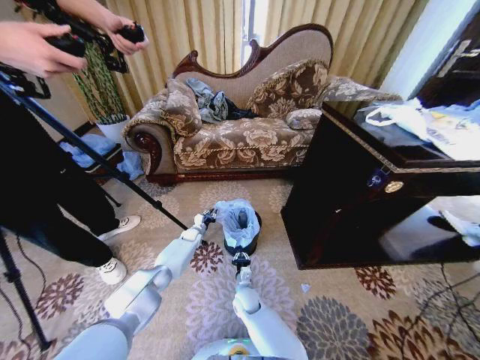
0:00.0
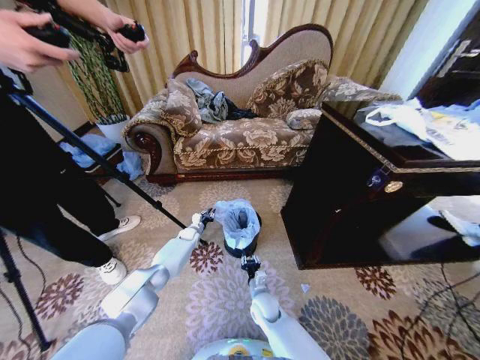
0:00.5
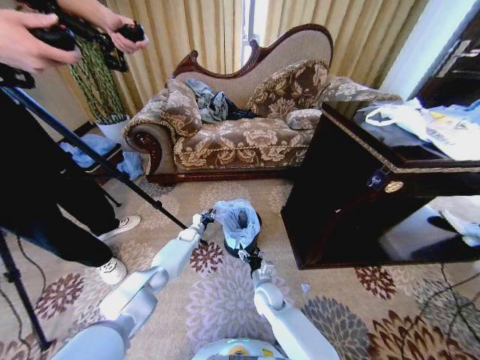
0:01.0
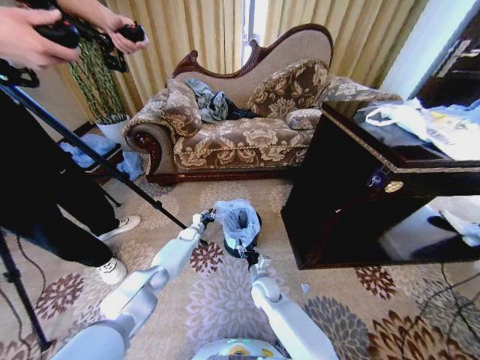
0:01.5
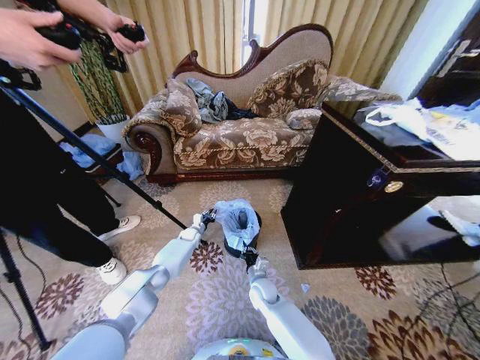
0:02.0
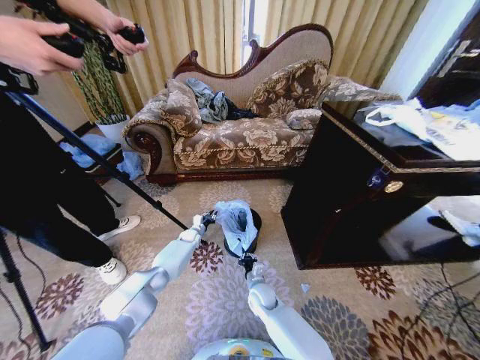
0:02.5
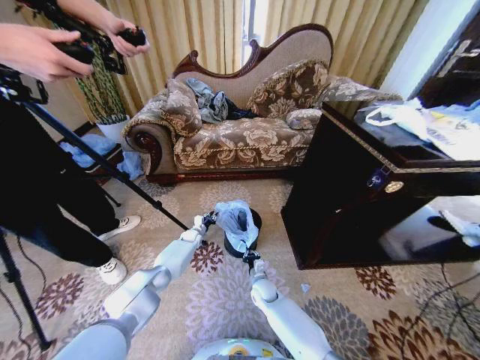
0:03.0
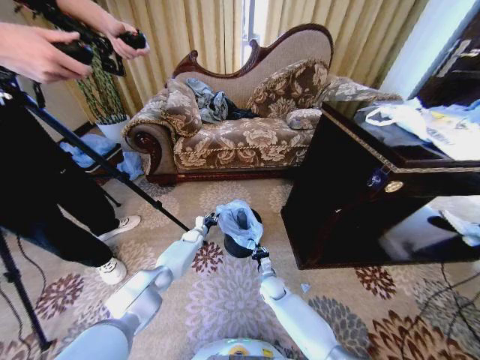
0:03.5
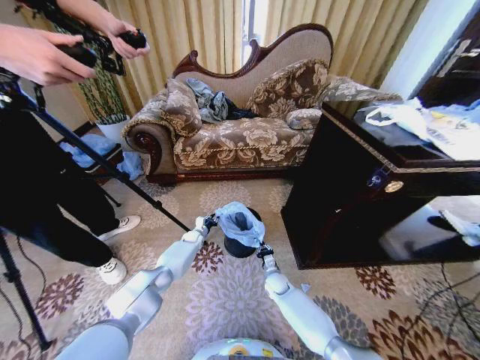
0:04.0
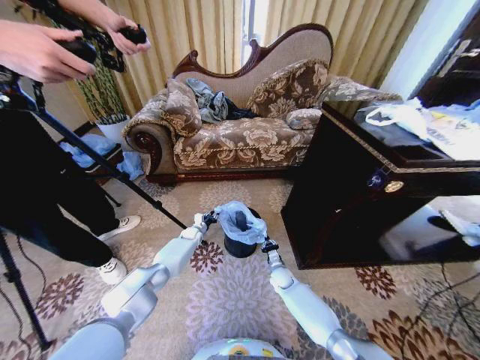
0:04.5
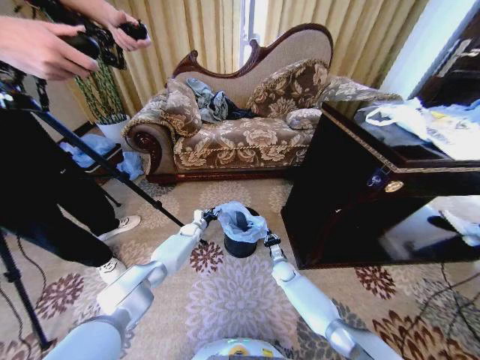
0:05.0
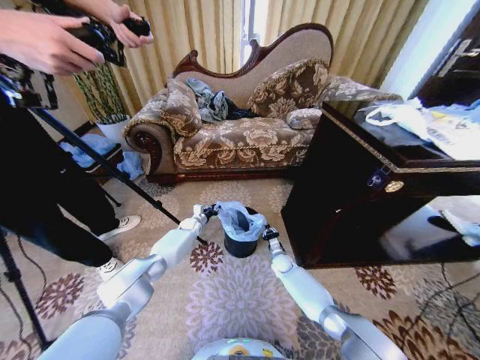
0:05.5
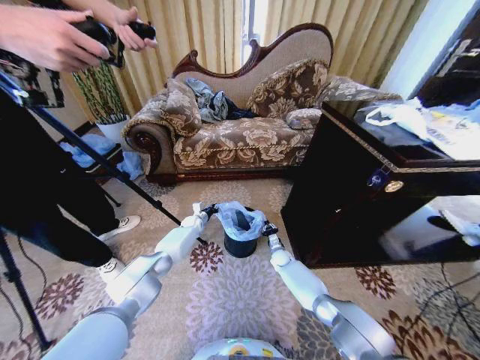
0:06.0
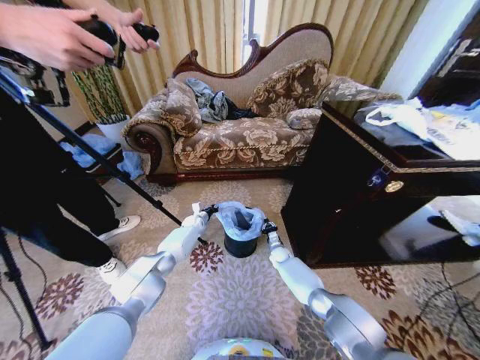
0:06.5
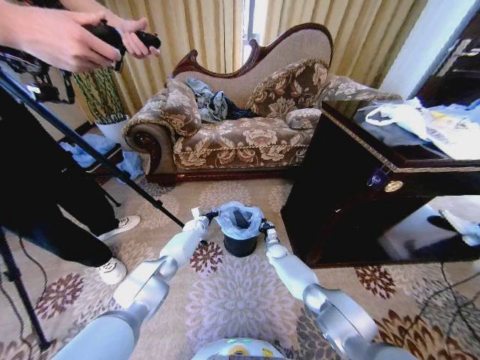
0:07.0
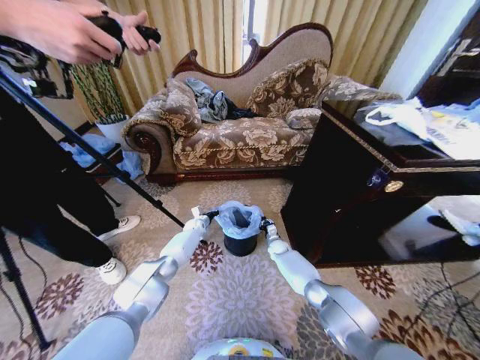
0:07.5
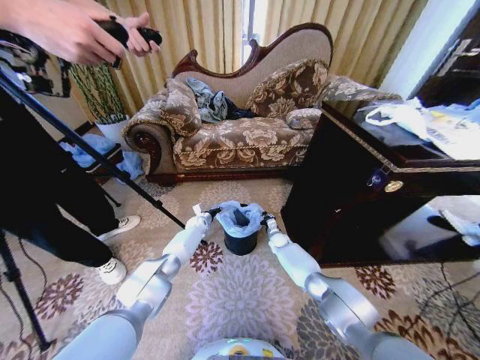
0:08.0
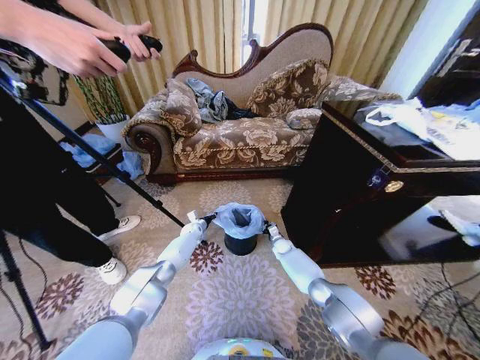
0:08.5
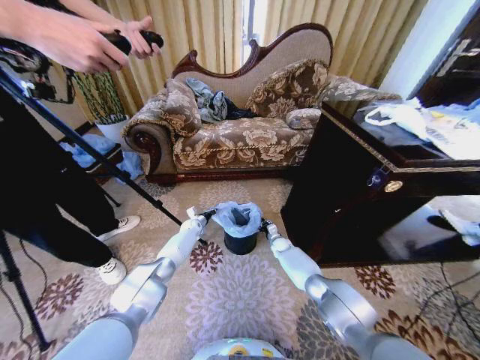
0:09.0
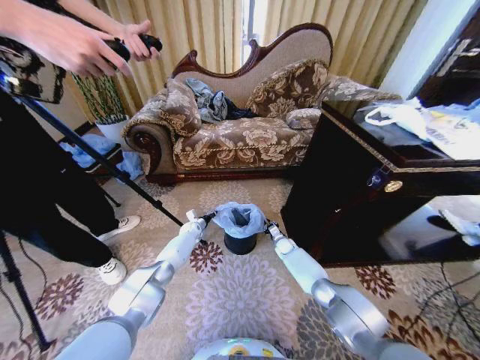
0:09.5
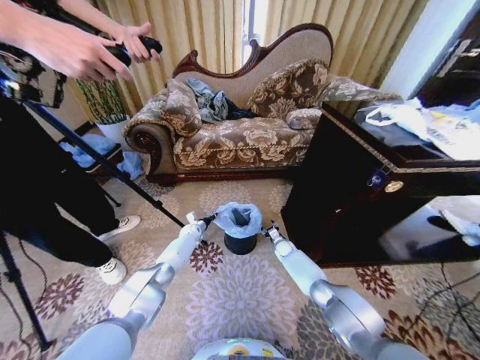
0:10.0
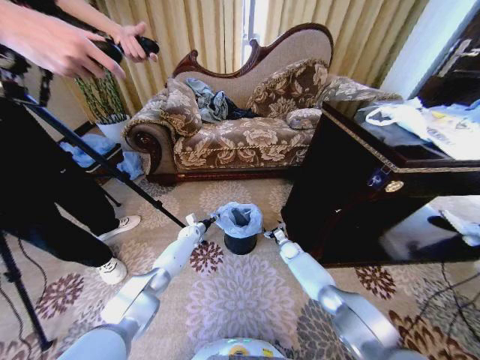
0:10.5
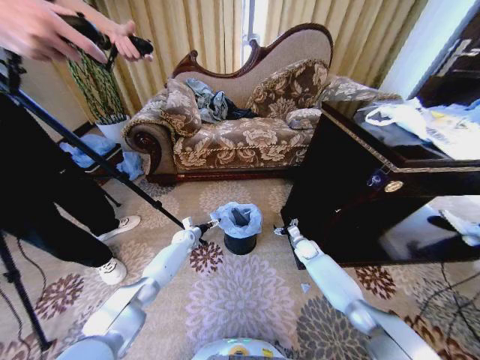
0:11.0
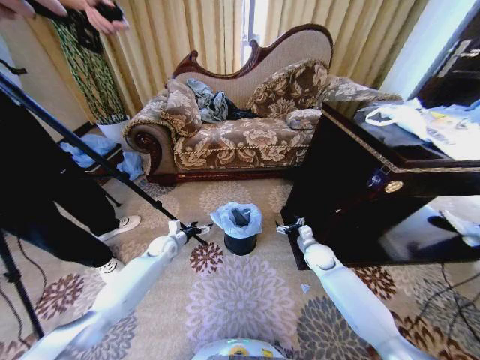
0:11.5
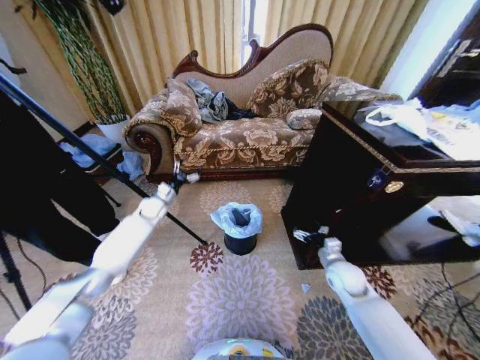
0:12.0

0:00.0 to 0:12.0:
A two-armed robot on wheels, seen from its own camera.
Task of the whole recording: Place a garbage bag over the trash bin.
0:00.0 to 0:02.0: The right gripper goes some 5 cm to the right, and opens, then closes once more.
0:02.0 to 0:04.0: The right gripper shifts roughly 10 cm to the right and downward.
0:04.0 to 0:06.0: The right gripper moves forward, approximately 10 cm. Meanwhile the left gripper goes approximately 5 cm upward.
0:06.0 to 0:08.0: The right gripper shifts about 5 cm forward.
0:08.0 to 0:10.0: The right gripper opens up.
0:10.0 to 0:12.0: The right gripper shifts about 25 cm backward, upward and to the right; the left gripper goes roughly 20 cm upward and to the left, and opens.

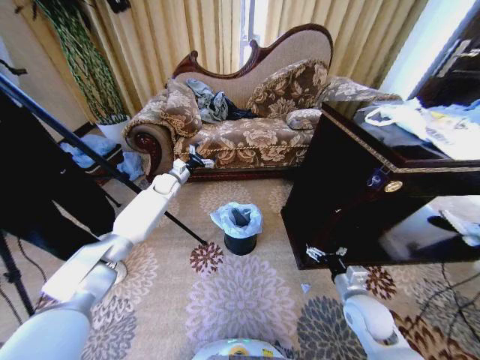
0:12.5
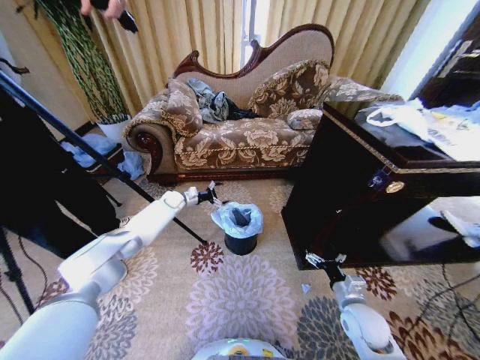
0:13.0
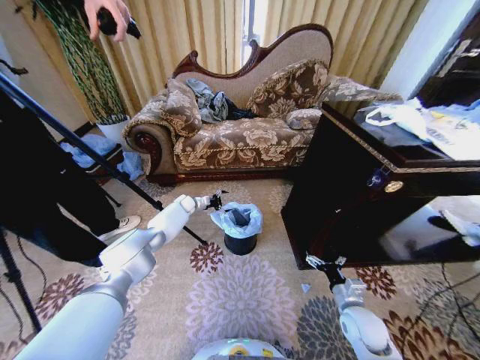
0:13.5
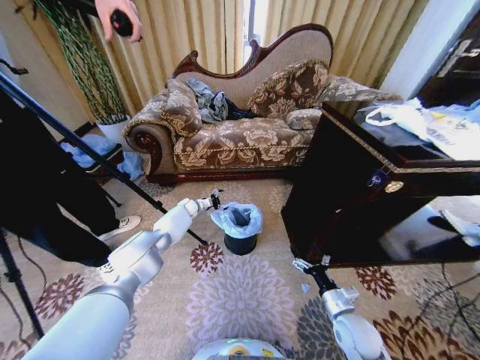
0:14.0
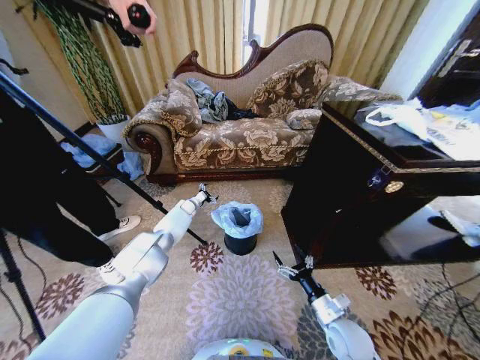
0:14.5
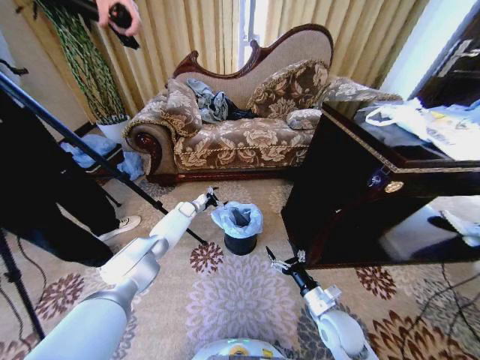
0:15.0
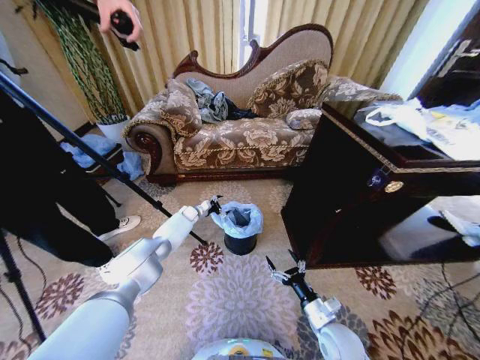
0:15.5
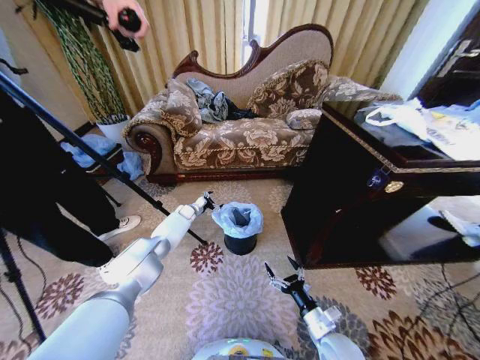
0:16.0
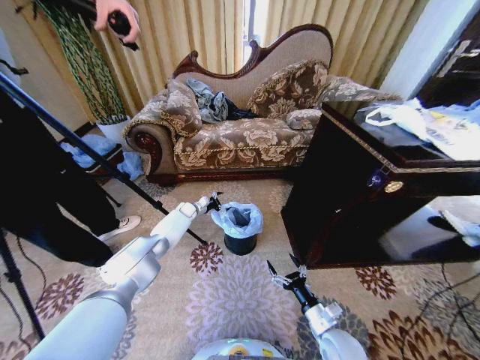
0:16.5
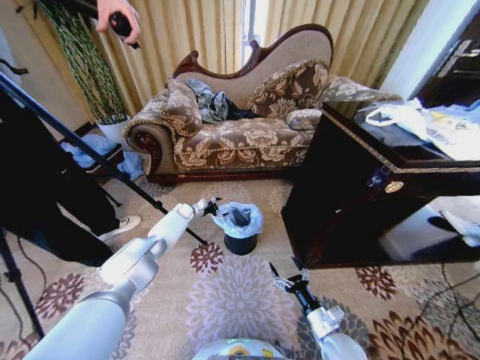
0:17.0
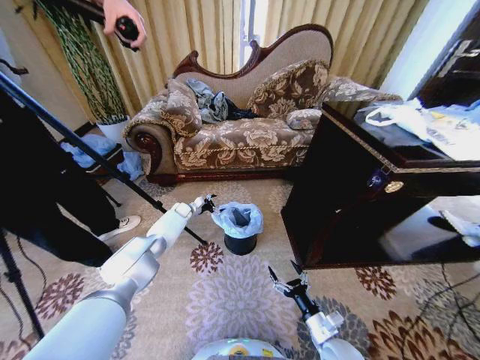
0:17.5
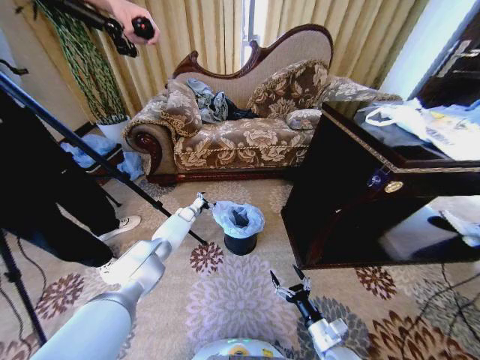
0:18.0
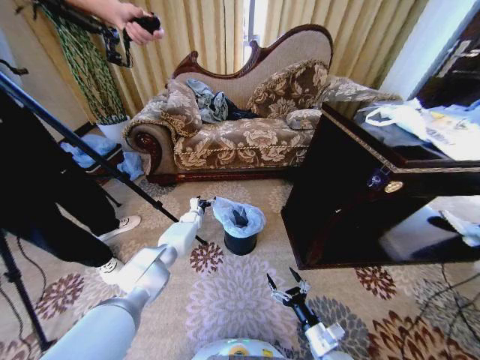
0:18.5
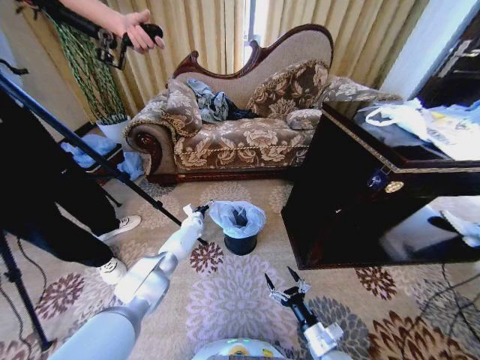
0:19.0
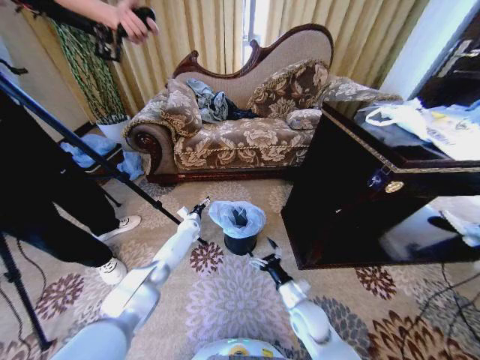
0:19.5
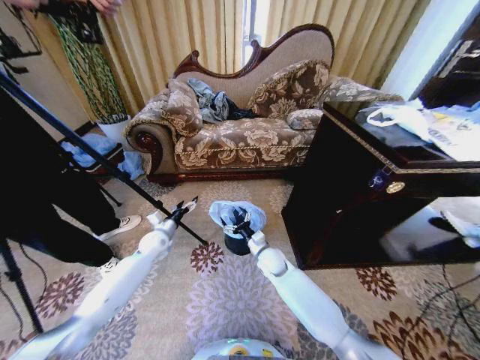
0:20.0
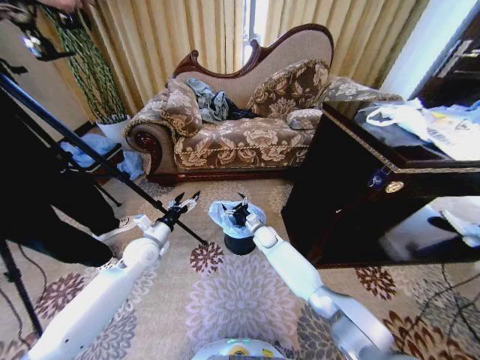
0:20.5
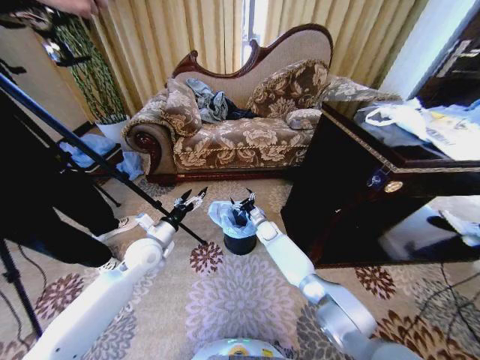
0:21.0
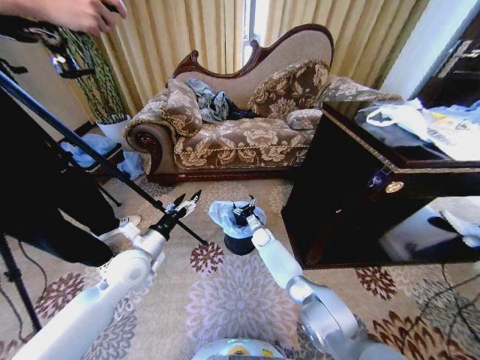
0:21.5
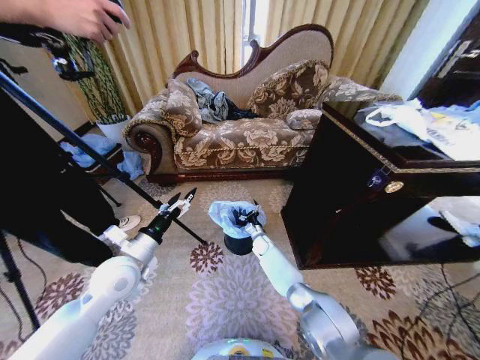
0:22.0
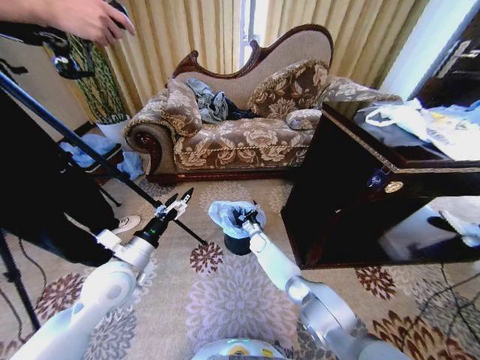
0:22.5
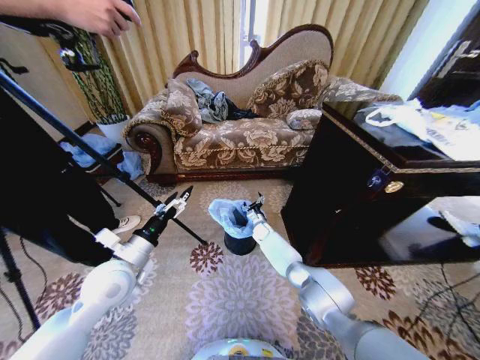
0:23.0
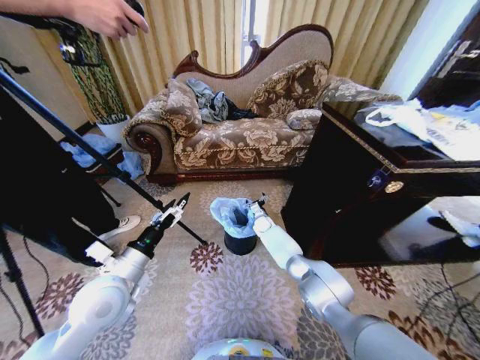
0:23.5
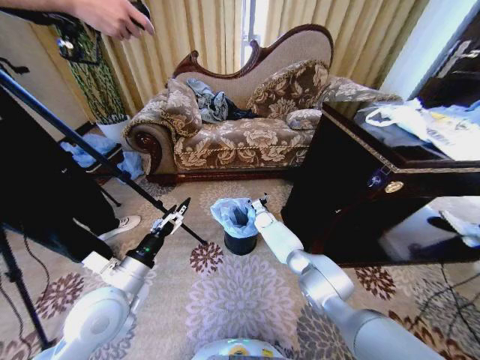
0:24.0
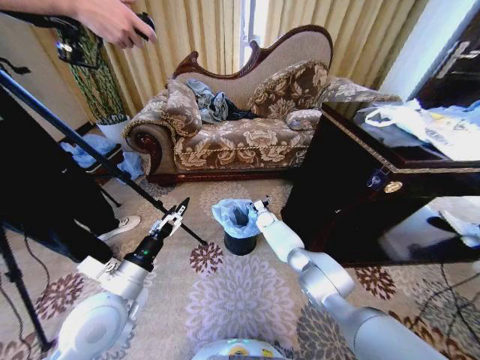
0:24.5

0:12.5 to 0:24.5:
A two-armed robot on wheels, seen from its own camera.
Task of the whole recording: Place a garbage bag over the trash bin.
0:12.5 to 0:14.5: The right gripper is displaced downward by some 5 cm. Meanwhile the left gripper is displaced downward by about 15 cm.
0:16.5 to 0:18.5: The left gripper ends up about 5 cm from where it was.
0:18.5 to 0:20.5: The left gripper is displaced backward and upward by roughly 30 cm; the right gripper goes approximately 40 cm forward and to the left.
0:20.5 to 0:22.5: The left gripper heads backward and upward, covering about 15 cm. The right gripper is displaced downward by roughly 10 cm.
0:22.5 to 0:24.5: The left gripper moves backward, about 5 cm, while the right gripper is displaced forward and upward by about 10 cm.

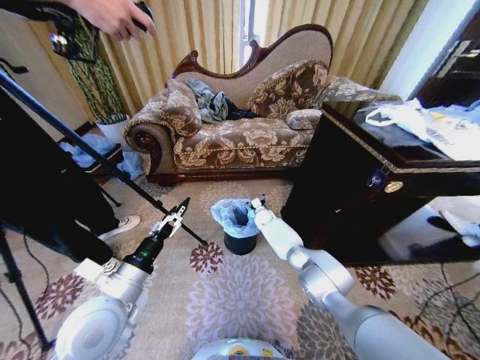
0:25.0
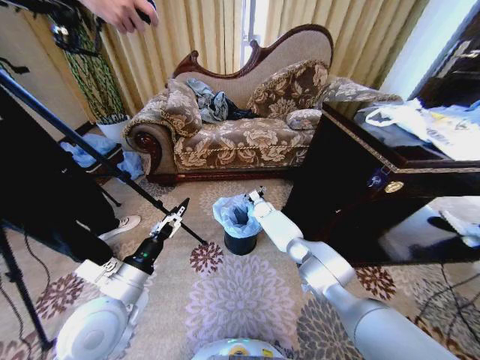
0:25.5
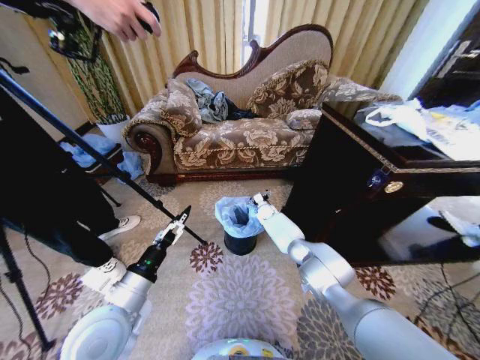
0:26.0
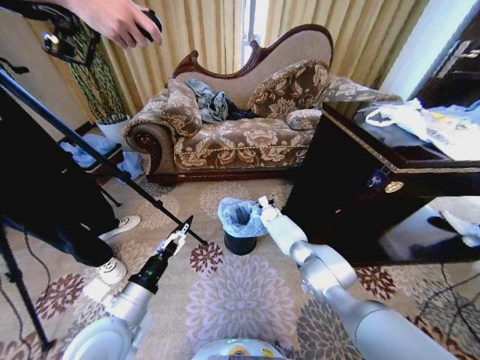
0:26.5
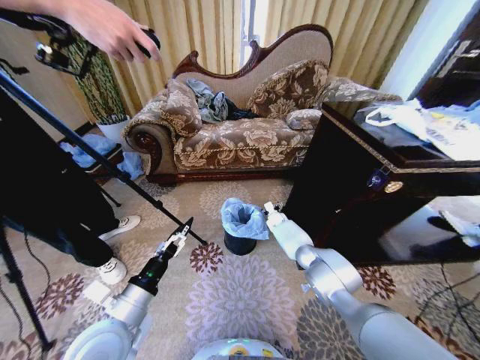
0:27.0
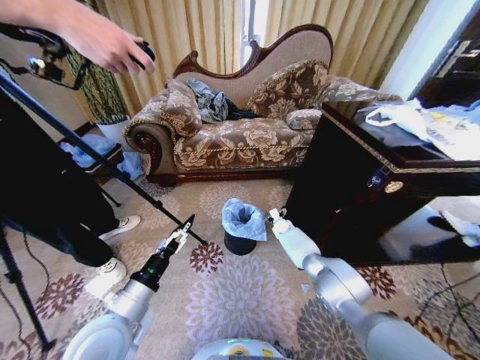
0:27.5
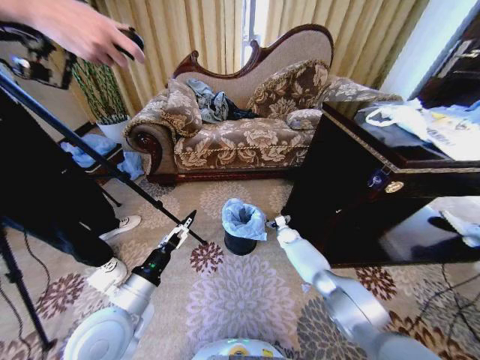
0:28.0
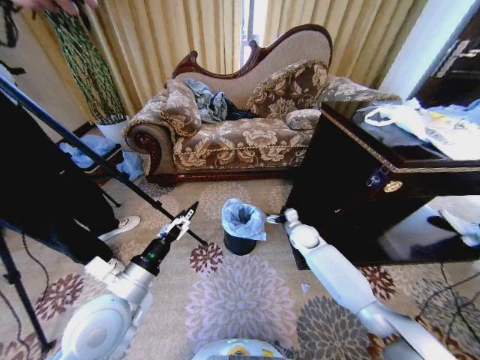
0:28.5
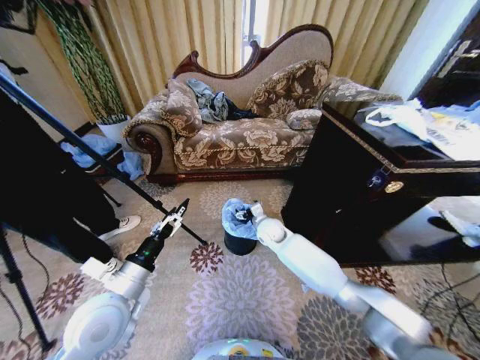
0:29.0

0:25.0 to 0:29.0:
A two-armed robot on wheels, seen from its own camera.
Task of the whole recording: Place a garbage bag over the trash bin.
0:25.0 to 0:27.0: The right gripper shifts approximately 5 cm to the right.
0:27.0 to 0:29.0: The right gripper is displaced backward, upward and to the left by approximately 20 cm.
